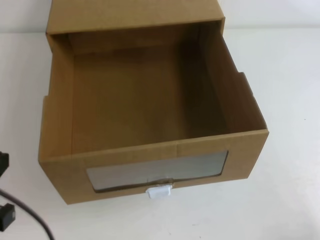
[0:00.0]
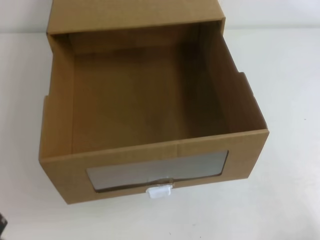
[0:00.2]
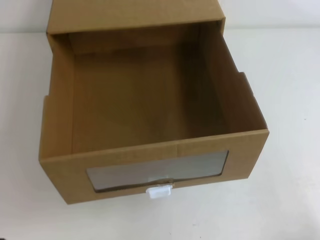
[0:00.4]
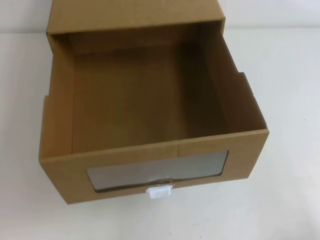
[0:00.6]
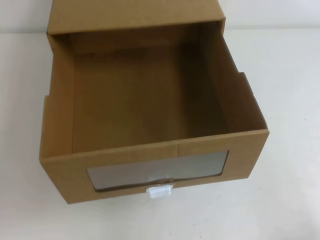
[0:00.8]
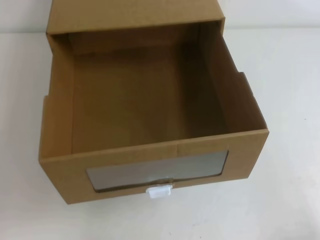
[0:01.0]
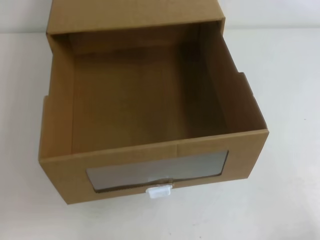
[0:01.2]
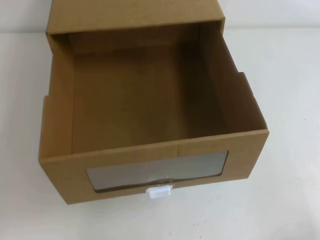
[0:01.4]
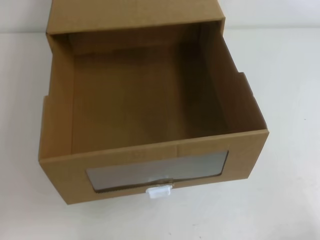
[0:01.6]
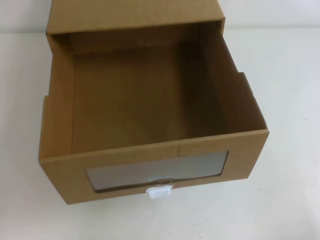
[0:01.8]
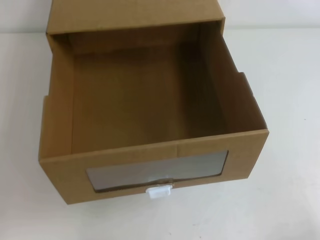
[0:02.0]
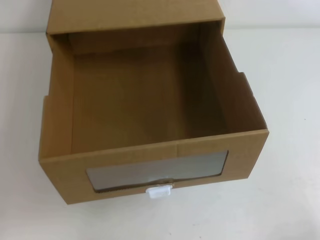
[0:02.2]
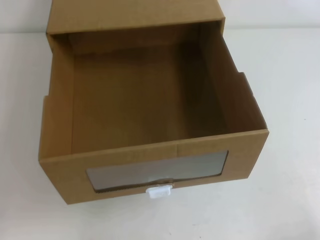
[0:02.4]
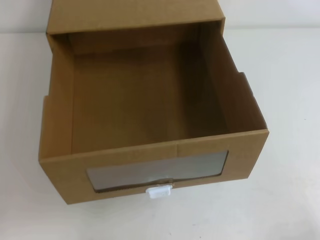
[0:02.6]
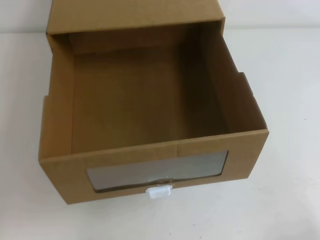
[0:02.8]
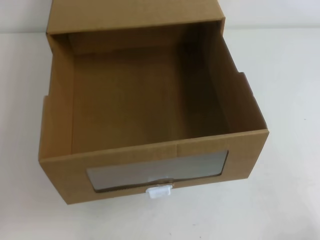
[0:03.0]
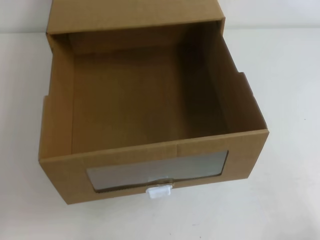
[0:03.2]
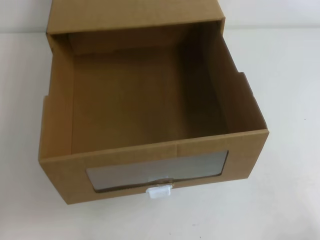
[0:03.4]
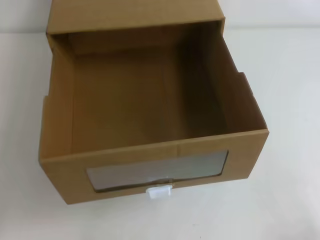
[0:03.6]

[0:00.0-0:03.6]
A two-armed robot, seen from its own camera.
Task of the whole recording: open the shoebox on the table.
Step, 0:00.0 to 0:03.6: Open the shoe box.
0:00.0 to 0:01.8: The left gripper is displaced downward by roughly 15 cm.
0:01.8 to 0:03.6: Both grippers stay put.

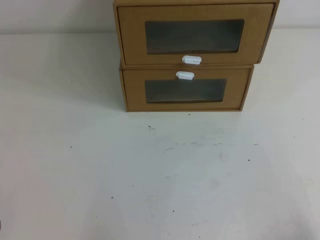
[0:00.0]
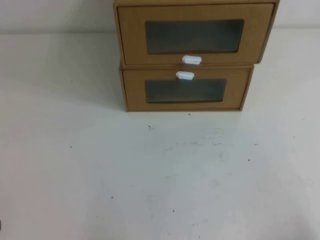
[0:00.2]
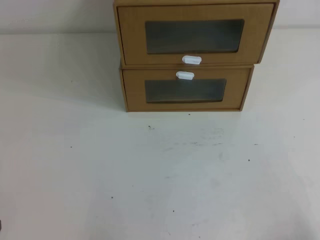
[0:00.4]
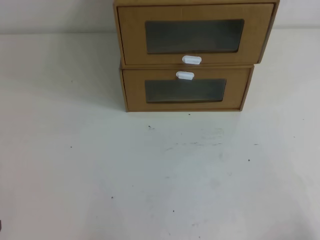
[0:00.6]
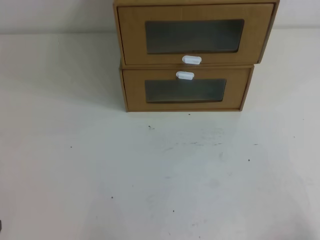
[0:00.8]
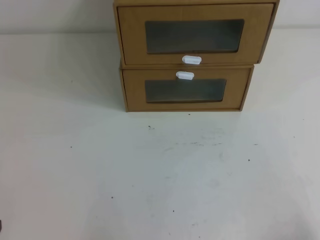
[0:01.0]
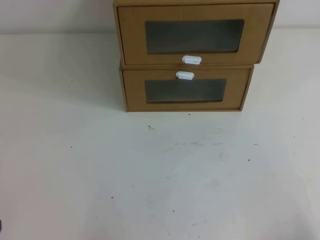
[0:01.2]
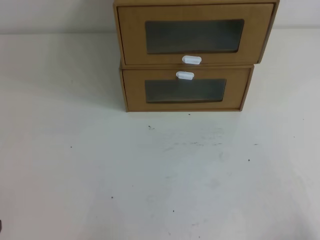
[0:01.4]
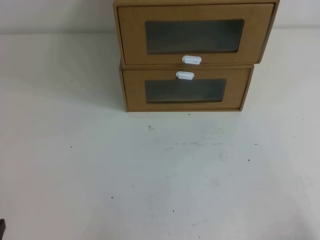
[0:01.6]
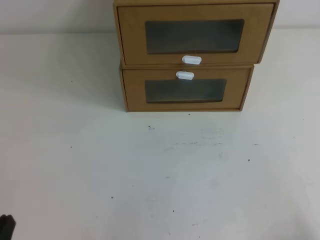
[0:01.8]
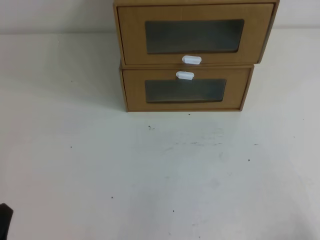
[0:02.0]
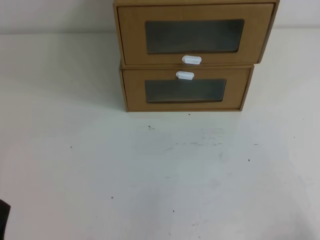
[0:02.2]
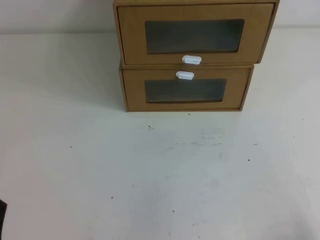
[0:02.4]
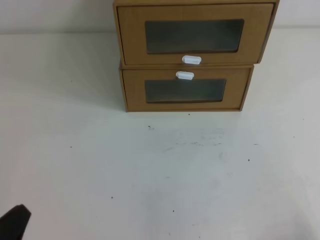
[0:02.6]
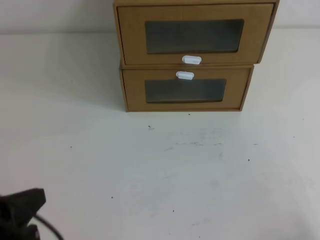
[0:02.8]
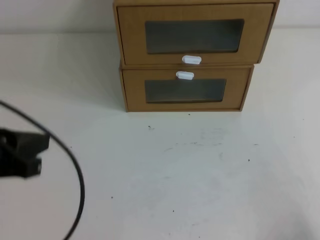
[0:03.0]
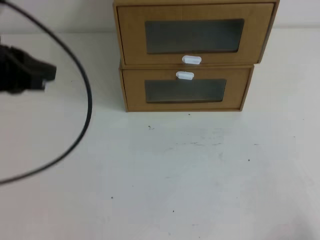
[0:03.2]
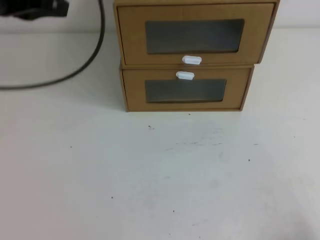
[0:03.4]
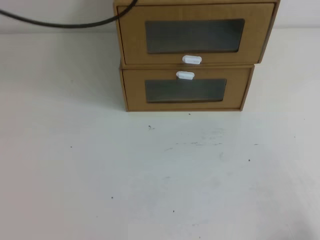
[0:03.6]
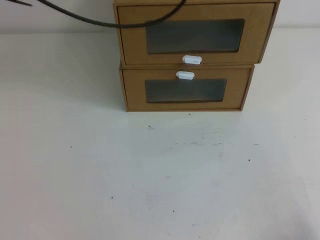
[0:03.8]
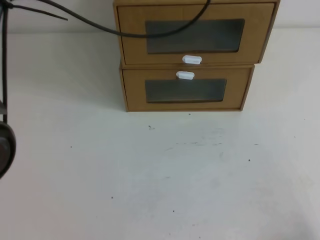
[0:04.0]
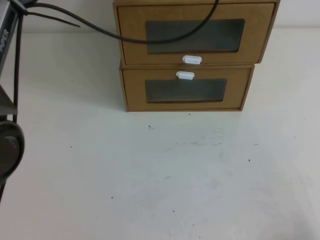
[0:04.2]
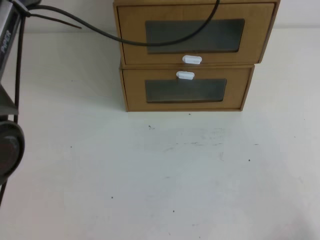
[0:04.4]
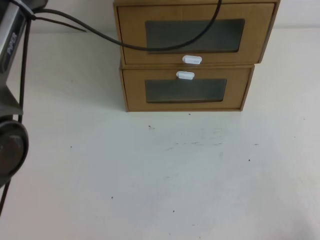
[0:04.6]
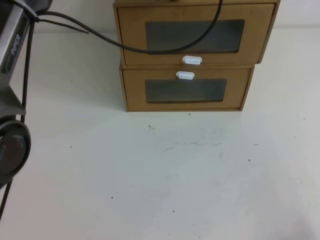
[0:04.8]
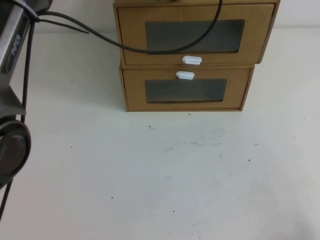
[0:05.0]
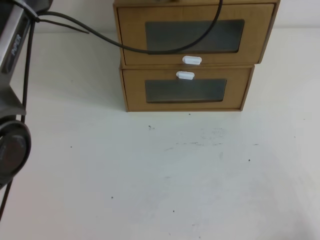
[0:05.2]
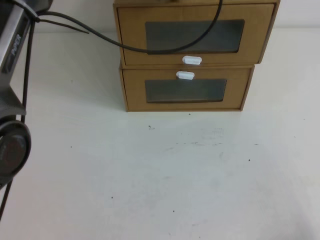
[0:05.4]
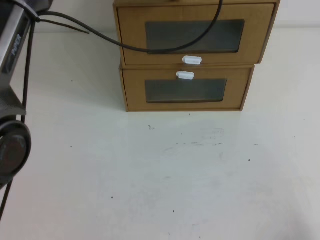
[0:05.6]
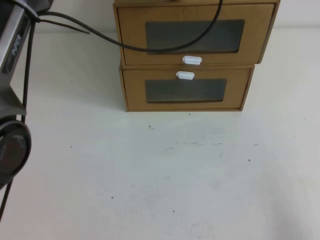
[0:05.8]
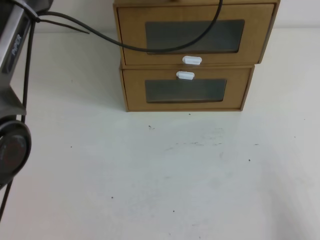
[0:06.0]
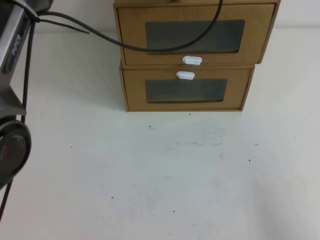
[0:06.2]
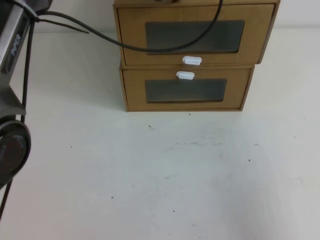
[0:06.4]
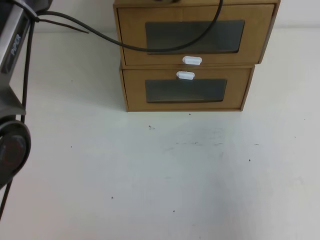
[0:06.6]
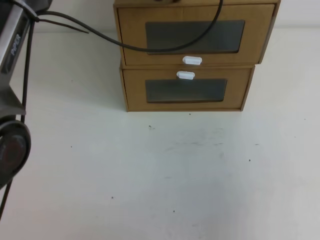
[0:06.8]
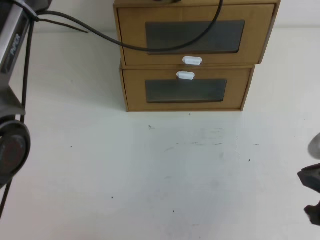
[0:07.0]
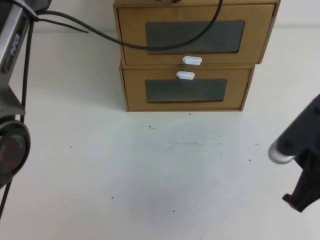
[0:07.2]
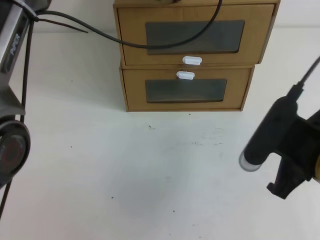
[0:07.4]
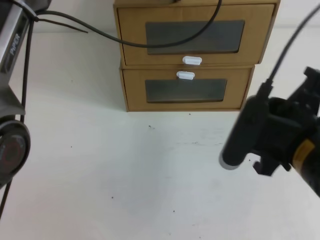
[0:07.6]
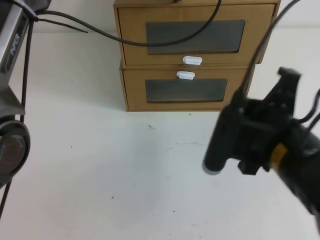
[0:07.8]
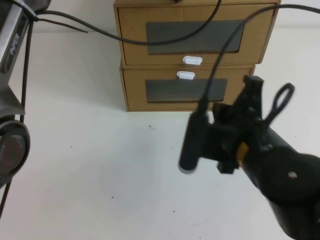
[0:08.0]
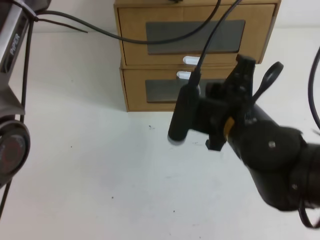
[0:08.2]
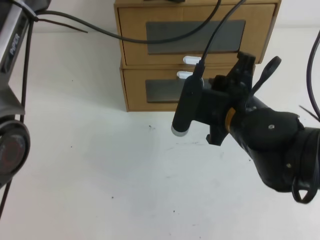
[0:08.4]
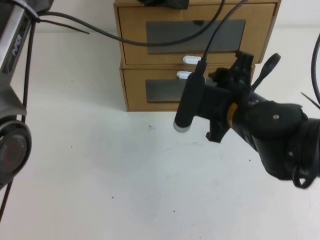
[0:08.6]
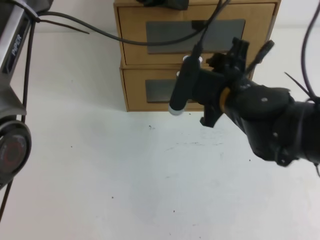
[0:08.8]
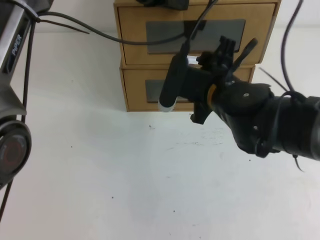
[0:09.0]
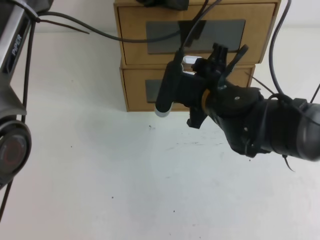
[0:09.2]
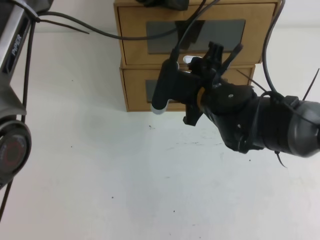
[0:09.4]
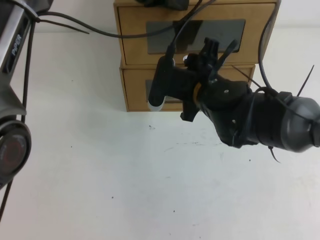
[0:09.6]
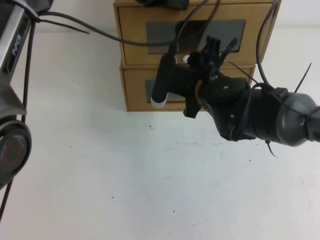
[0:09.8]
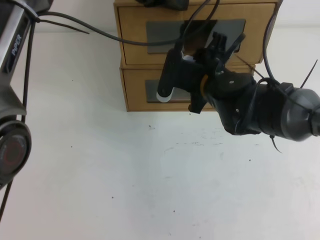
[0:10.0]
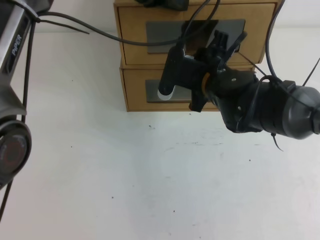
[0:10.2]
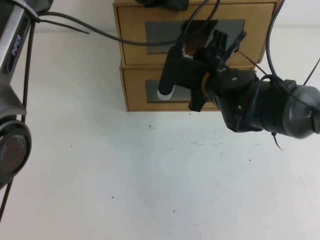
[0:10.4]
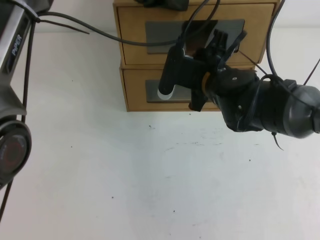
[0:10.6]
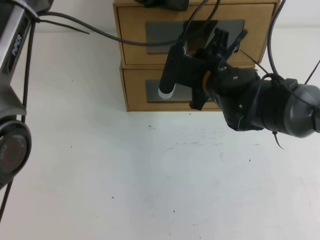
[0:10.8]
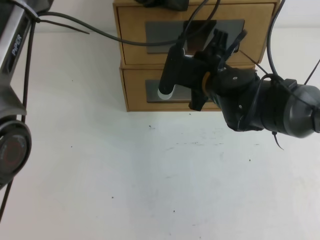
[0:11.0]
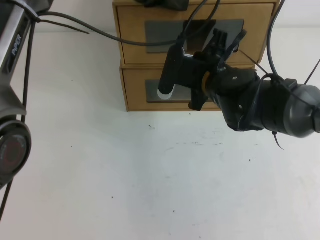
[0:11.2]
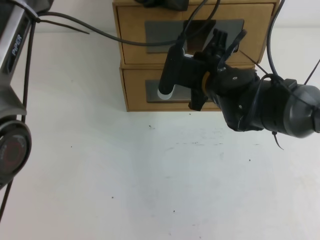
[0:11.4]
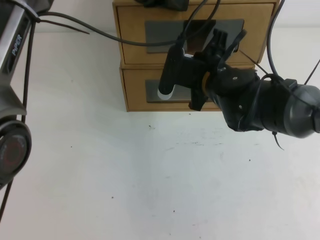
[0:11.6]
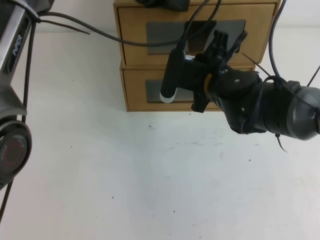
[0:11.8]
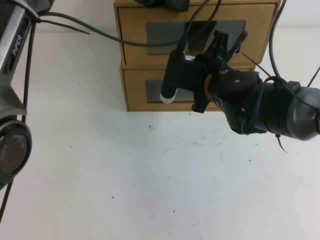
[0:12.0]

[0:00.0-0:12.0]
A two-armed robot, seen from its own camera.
Task of the whole recording: open the shoebox on the table.
0:01.6 to 0:03.0: The left gripper travels upward and forward by roughly 20 cm.
0:03.0 to 0:04.4: The left gripper travels forward and to the right by roughly 30 cm.
0:06.0 to 0:07.6: The right gripper is displaced to the left, forward and upward by about 25 cm.
0:07.6 to 0:09.0: The right gripper shifts about 15 cm forward and to the left, and opens its fingers.
0:09.0 to 0:10.4: The right gripper changes place by approximately 5 cm.
0:10.4 to 0:12.0: The right gripper closes.

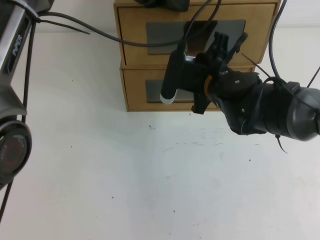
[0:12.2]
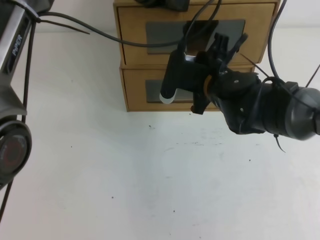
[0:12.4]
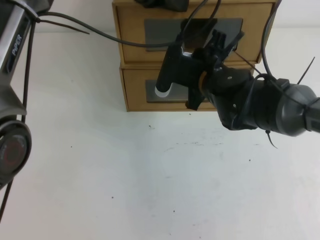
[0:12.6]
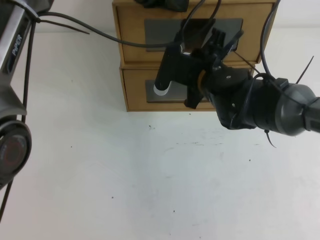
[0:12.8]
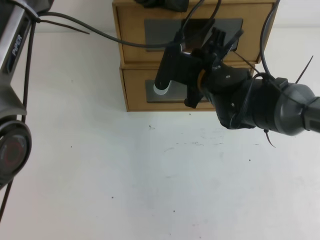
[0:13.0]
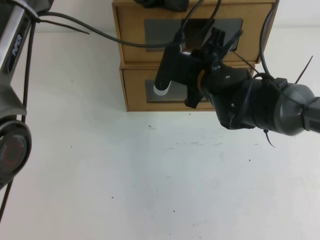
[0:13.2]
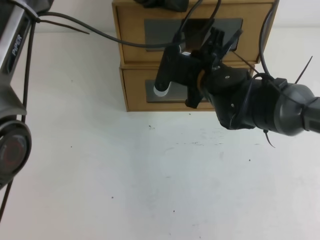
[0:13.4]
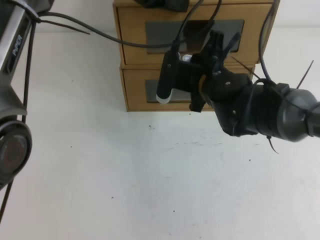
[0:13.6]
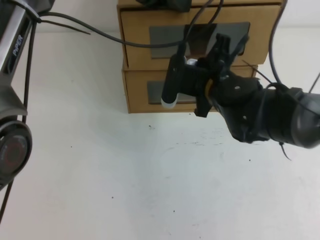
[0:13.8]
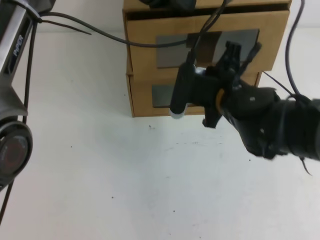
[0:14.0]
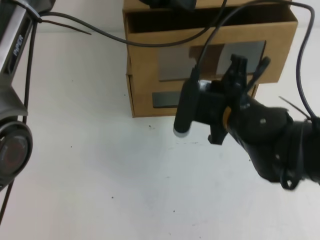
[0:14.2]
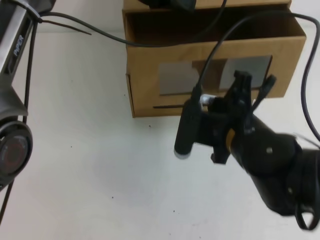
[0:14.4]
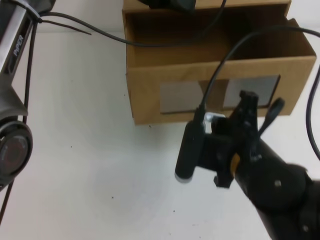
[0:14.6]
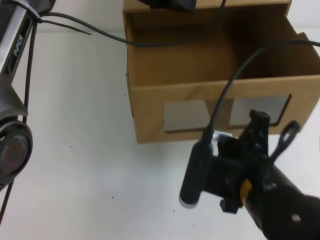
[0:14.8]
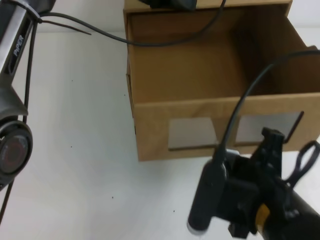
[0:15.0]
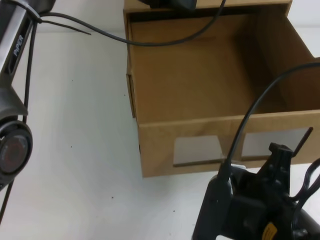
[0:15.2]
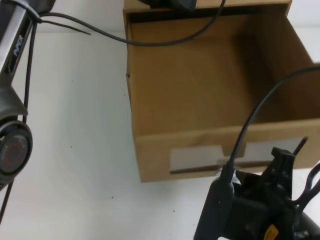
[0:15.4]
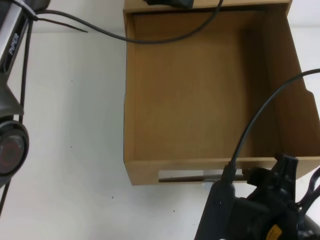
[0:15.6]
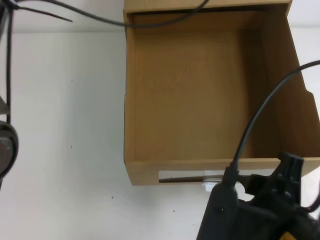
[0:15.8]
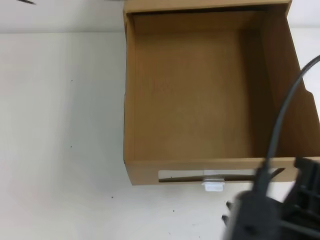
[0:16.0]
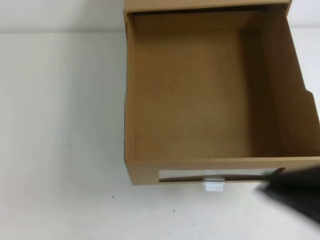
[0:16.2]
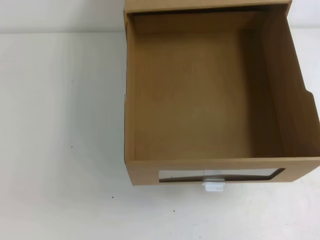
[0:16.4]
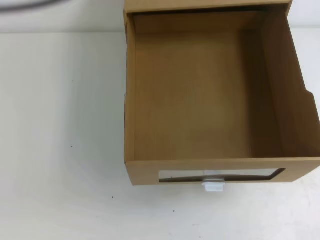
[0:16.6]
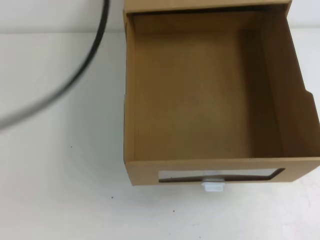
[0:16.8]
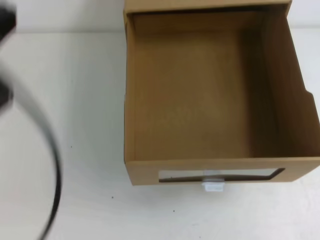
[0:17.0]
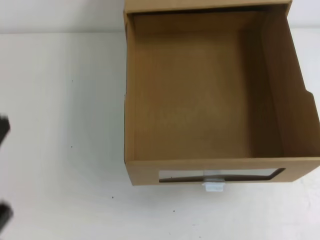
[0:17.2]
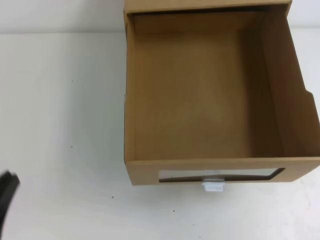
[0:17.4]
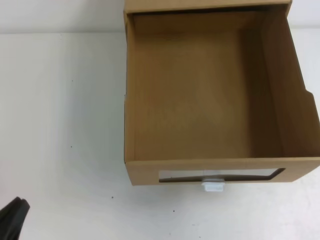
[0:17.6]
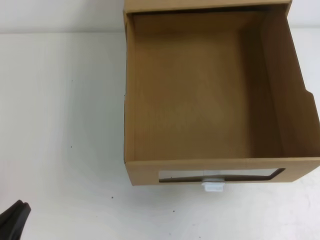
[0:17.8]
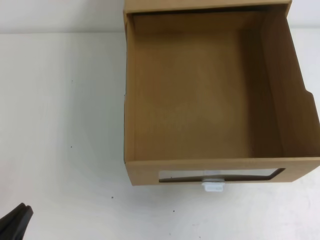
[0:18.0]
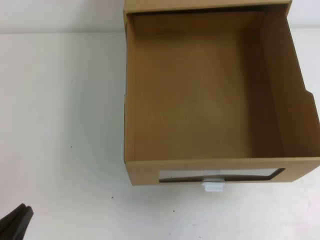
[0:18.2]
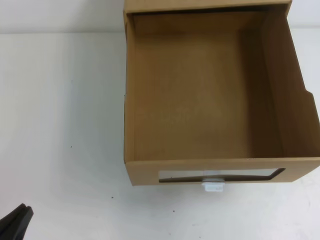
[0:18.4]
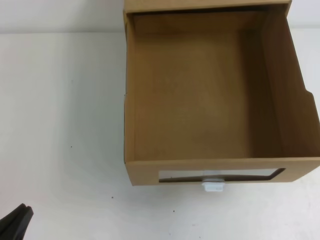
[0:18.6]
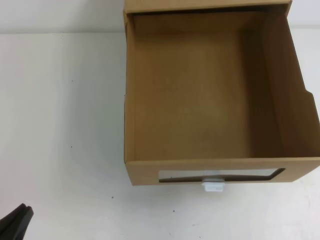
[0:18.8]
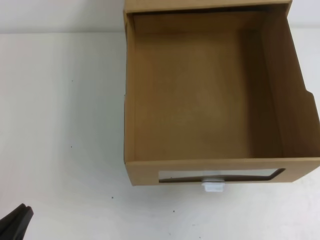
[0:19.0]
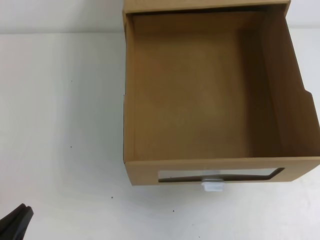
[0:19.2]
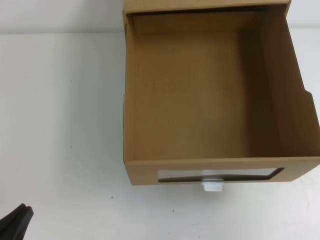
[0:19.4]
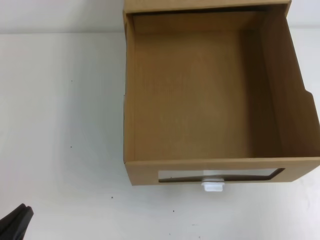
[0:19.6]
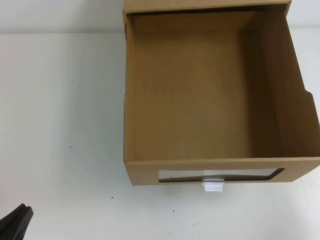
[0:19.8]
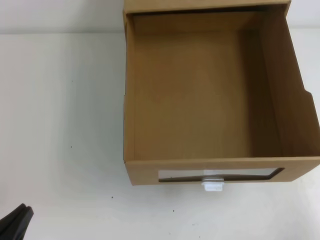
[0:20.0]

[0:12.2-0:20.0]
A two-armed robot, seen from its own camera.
Task of the whole recording: open the shoebox on the table.
0:12.2 to 0:13.8: Both grippers stay put.
0:13.8 to 0:15.4: The right gripper travels backward by approximately 25 cm, and opens its fingers.
0:15.4 to 0:16.8: The right gripper moves upward and to the right, about 30 cm, and closes its fingers. Meanwhile the left gripper travels backward, to the left and upward by some 30 cm.
0:16.8 to 0:18.4: The left gripper travels downward by some 35 cm.
0:18.4 to 0:20.0: The right gripper shifts roughly 25 cm downward.
